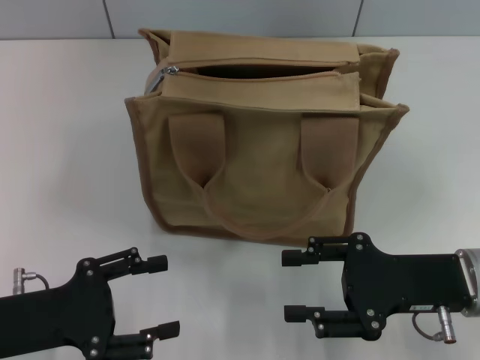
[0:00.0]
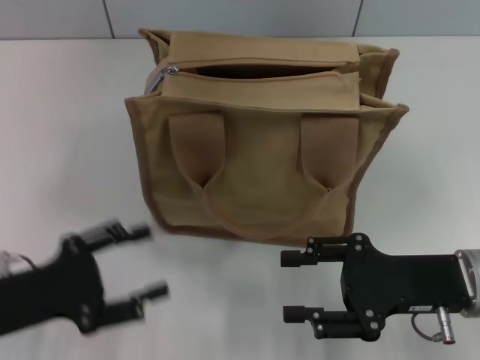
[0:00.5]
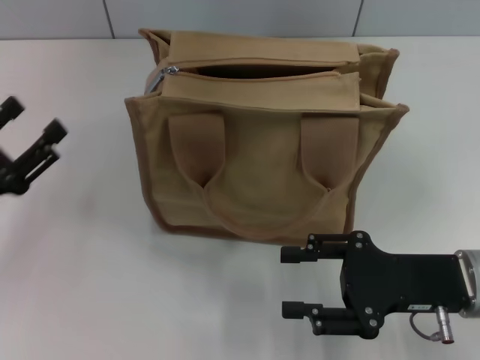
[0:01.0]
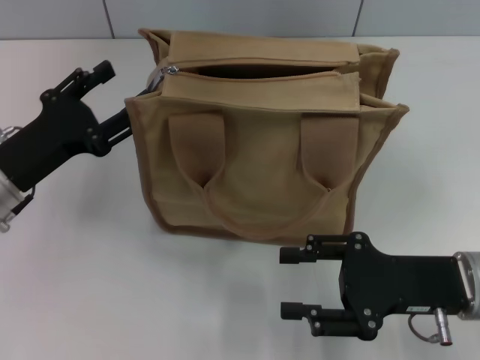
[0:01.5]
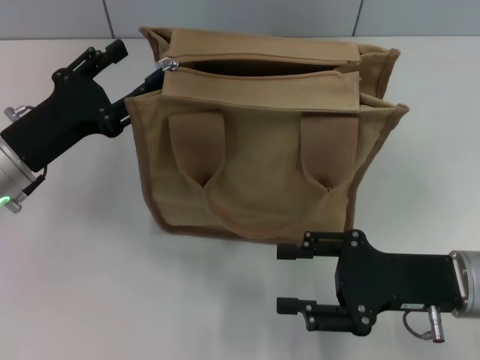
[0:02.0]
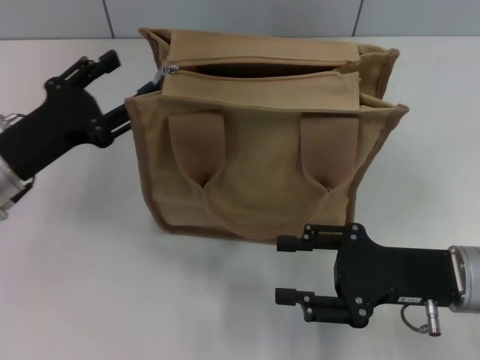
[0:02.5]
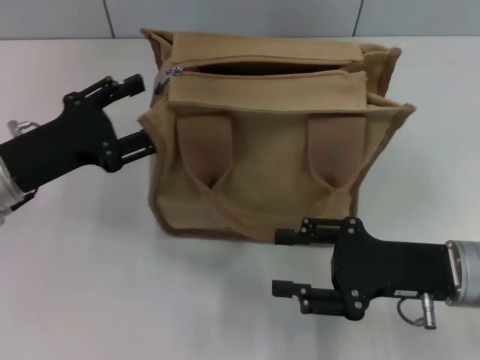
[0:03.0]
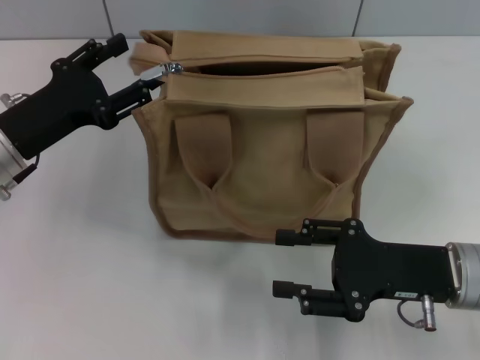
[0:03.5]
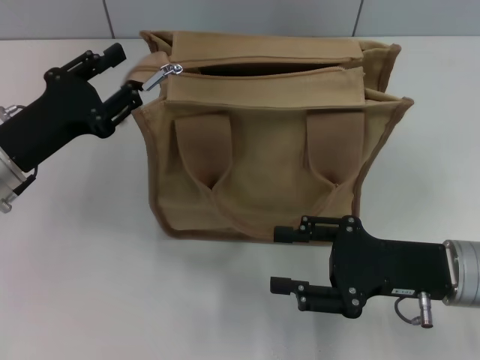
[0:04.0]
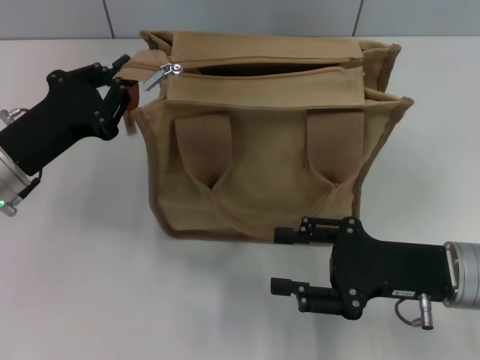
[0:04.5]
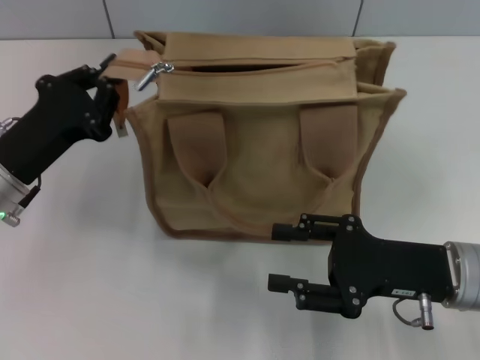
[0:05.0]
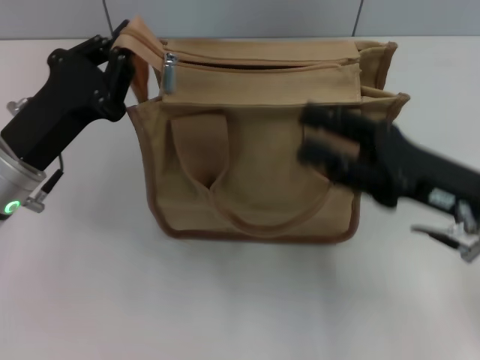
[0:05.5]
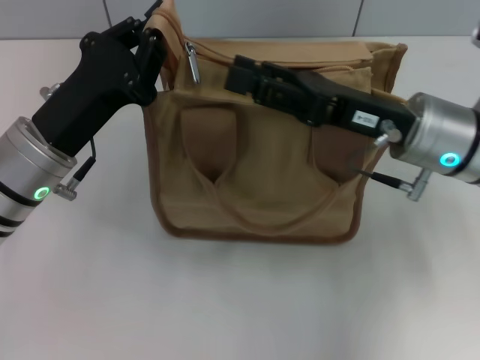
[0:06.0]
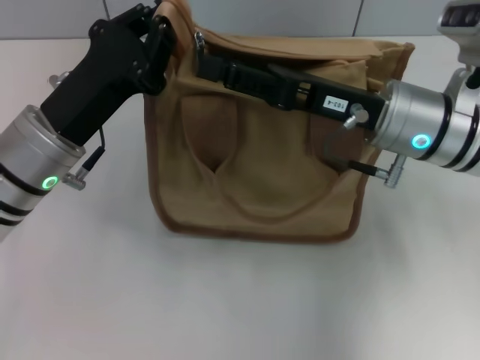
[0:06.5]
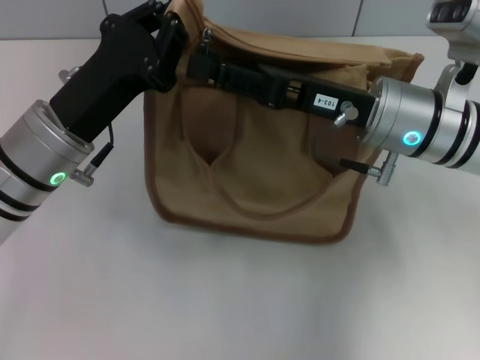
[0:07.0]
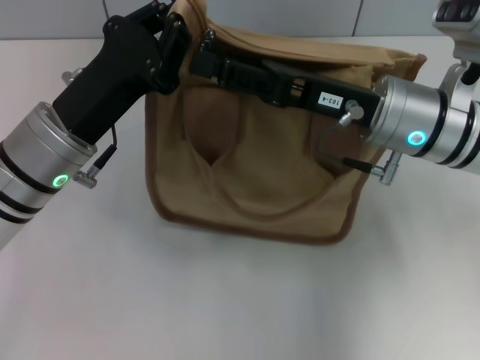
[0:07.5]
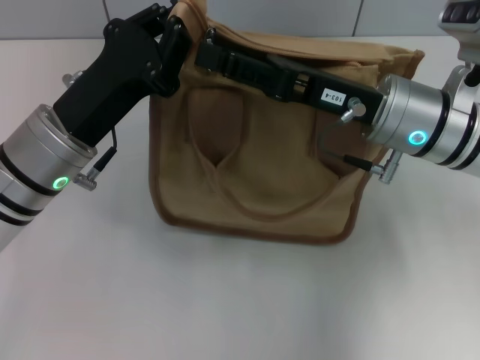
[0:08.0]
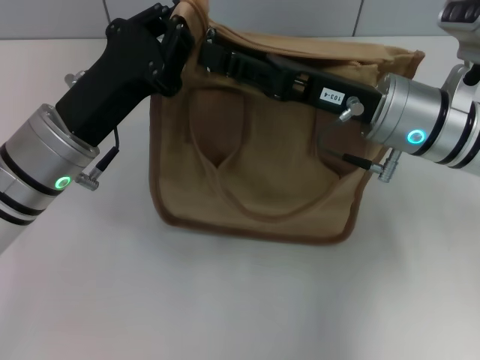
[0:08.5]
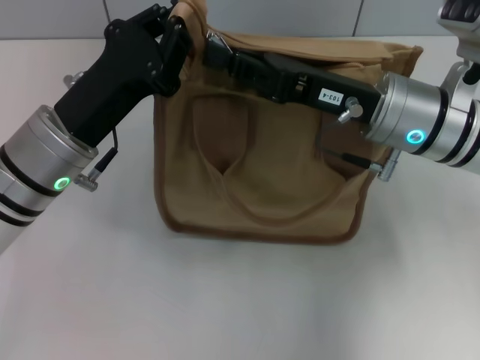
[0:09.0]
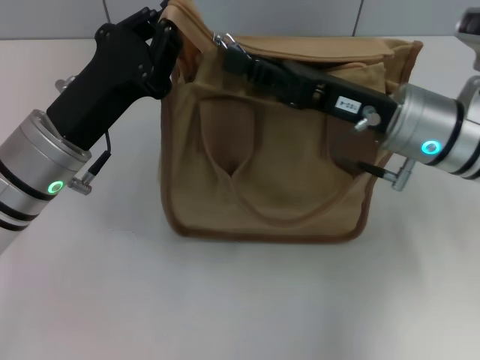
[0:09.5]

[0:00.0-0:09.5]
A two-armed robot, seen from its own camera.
0:00.0 to 0:02.0: The left gripper moves forward, roughly 10 cm.
0:02.0 to 0:04.0: The grippers move only a little.
0:04.0 to 0:05.5: The left gripper closes. Meanwhile the right gripper shifts by some 5 cm.
0:05.5 to 0:07.5: The left gripper moves roughly 5 cm. Meanwhile the right gripper moves forward and to the left, approximately 10 cm.
0:07.5 to 0:09.5: The right gripper closes.

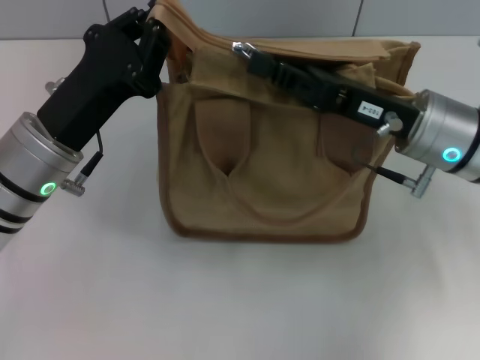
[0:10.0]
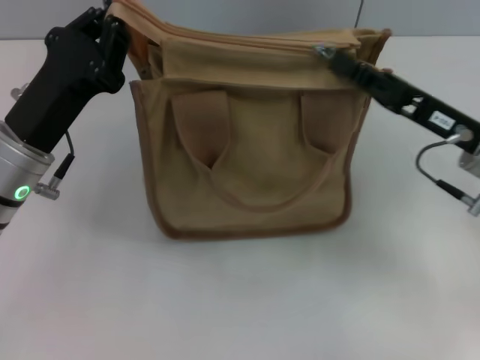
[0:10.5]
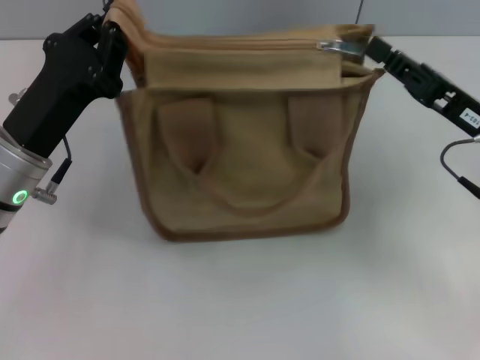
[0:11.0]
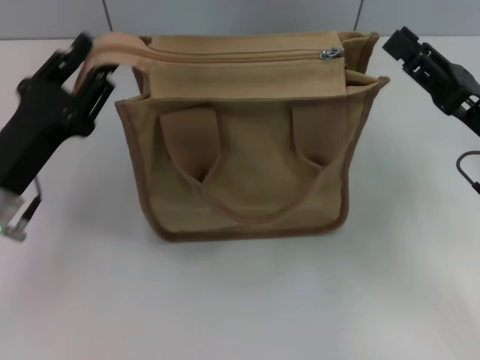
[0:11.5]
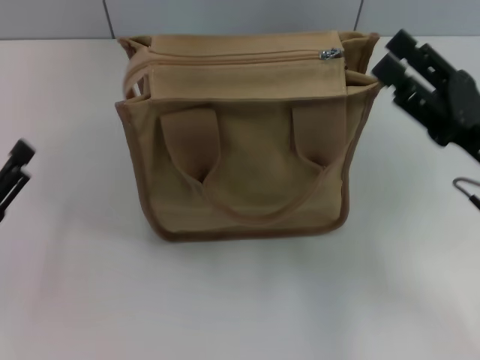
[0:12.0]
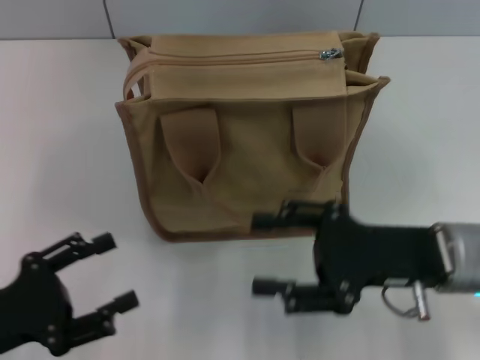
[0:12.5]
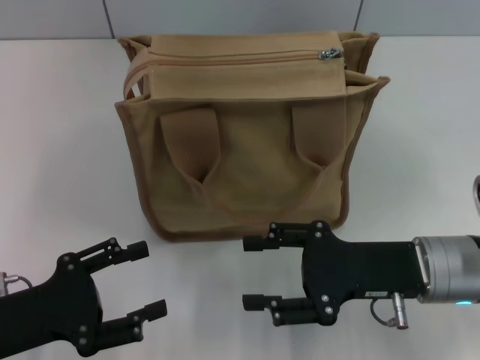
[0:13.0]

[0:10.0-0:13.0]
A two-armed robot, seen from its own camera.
0:10.0 to 0:11.5: The left gripper moves to the left, some 5 cm, and opens its fingers. Meanwhile the right gripper shifts approximately 10 cm to the right, and opens up.
0:11.5 to 0:13.0: The left gripper heads backward, covering some 10 cm, and opens its fingers; the right gripper heads to the left, covering approximately 5 cm, and opens up.
